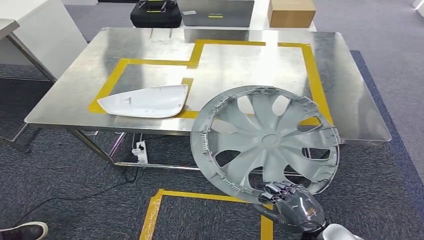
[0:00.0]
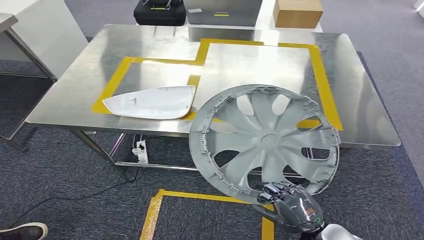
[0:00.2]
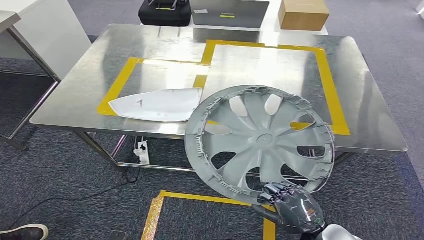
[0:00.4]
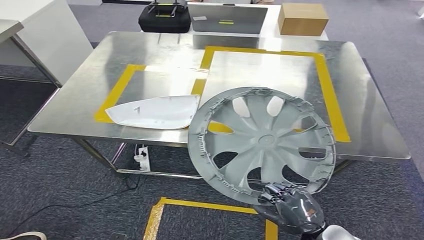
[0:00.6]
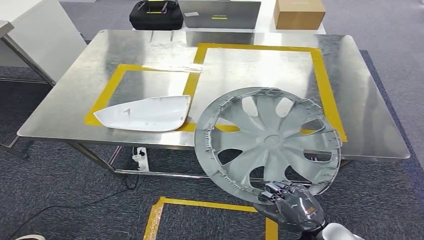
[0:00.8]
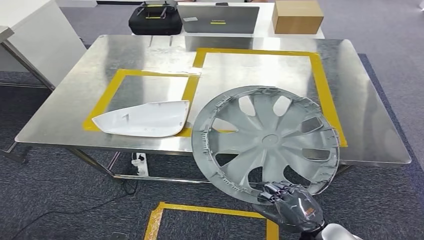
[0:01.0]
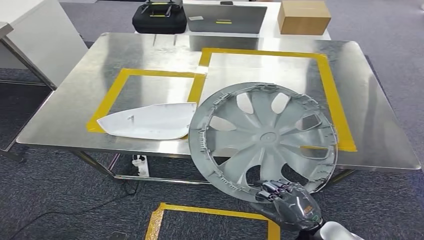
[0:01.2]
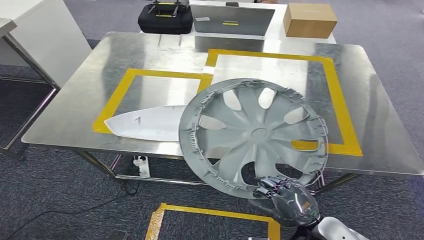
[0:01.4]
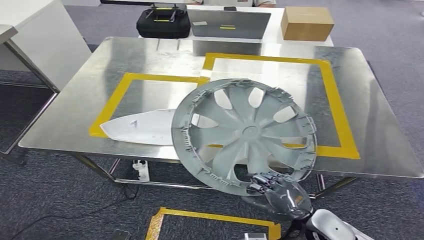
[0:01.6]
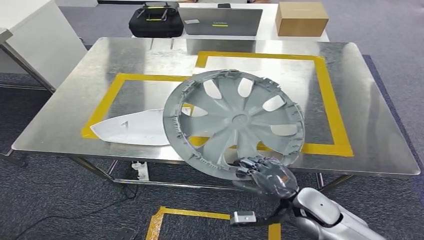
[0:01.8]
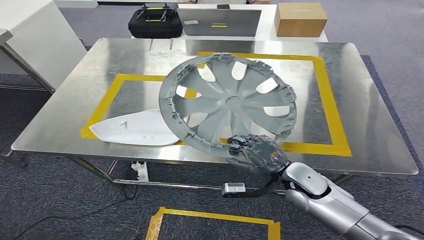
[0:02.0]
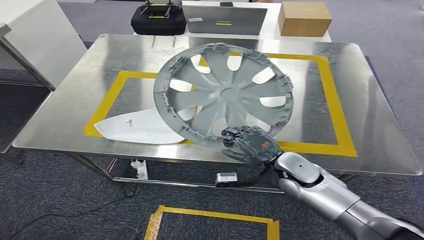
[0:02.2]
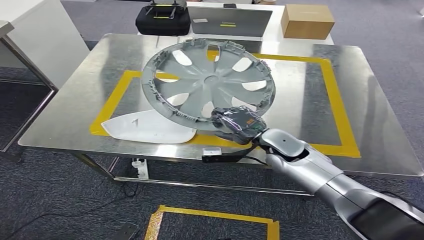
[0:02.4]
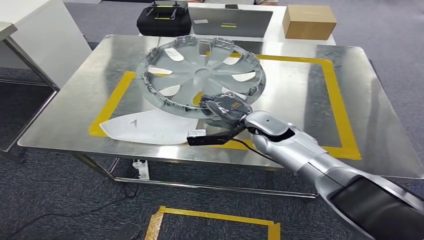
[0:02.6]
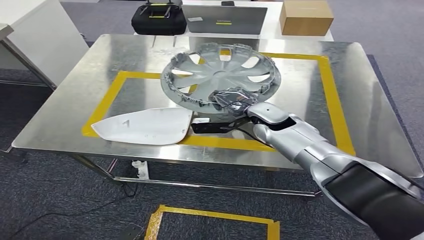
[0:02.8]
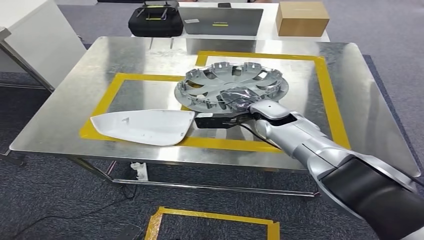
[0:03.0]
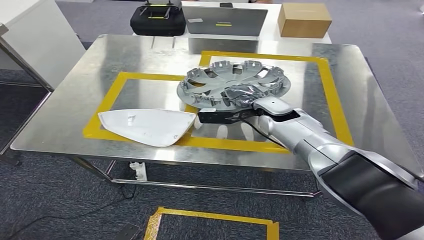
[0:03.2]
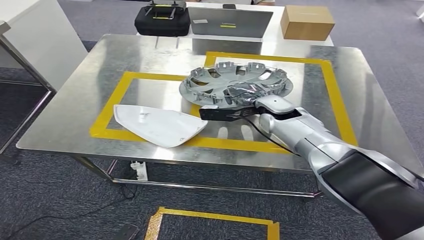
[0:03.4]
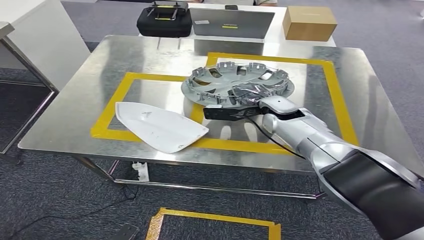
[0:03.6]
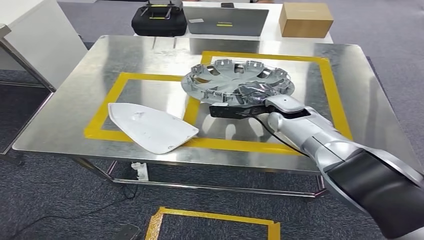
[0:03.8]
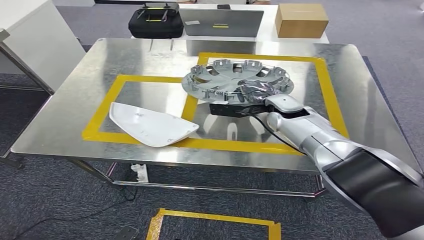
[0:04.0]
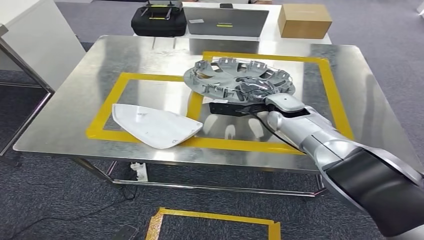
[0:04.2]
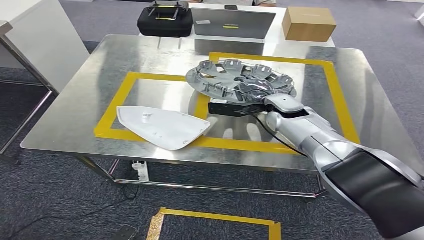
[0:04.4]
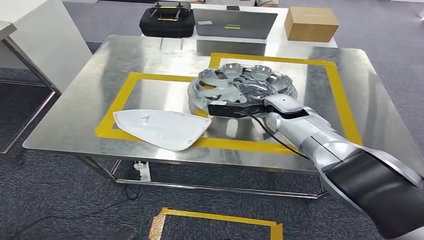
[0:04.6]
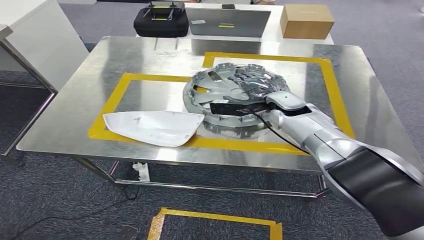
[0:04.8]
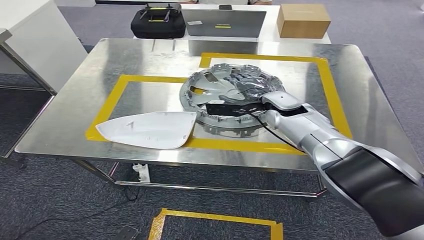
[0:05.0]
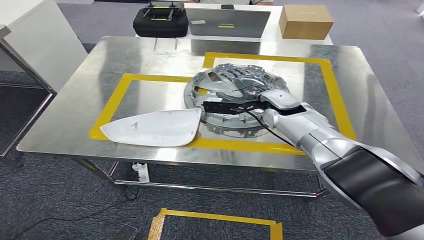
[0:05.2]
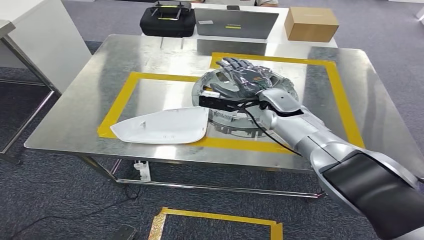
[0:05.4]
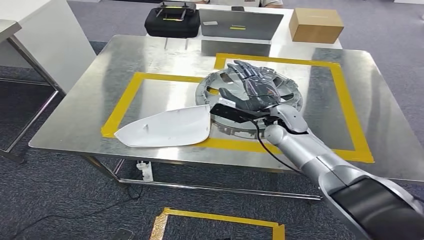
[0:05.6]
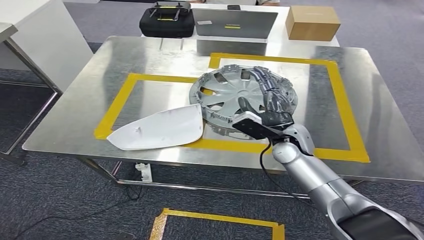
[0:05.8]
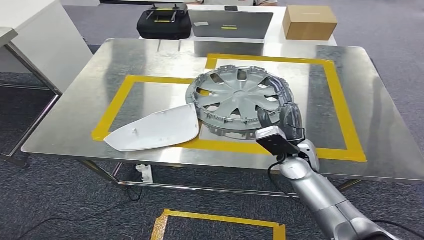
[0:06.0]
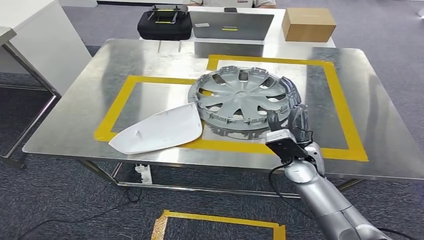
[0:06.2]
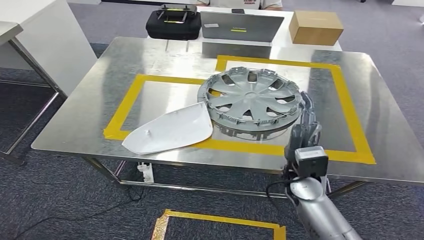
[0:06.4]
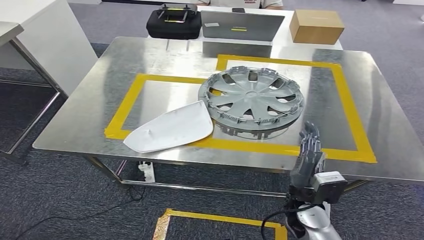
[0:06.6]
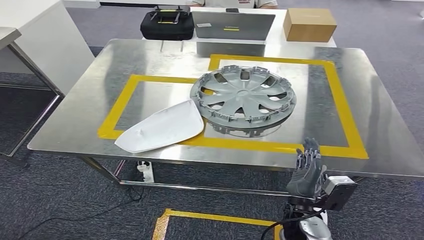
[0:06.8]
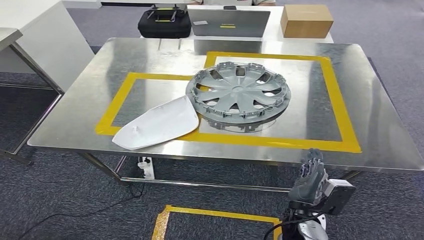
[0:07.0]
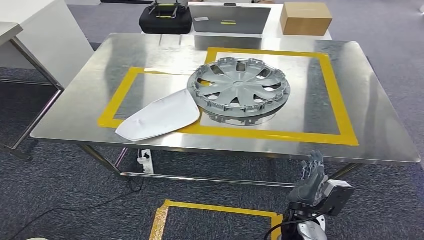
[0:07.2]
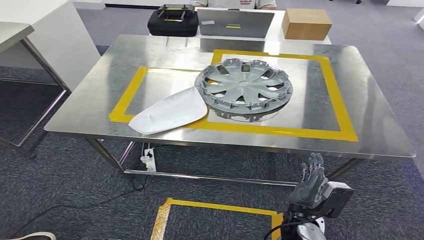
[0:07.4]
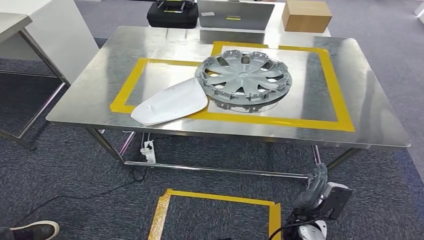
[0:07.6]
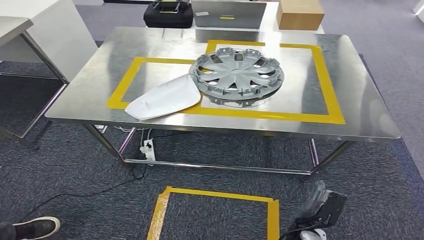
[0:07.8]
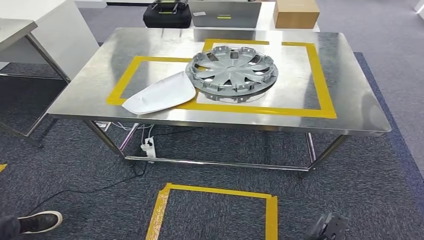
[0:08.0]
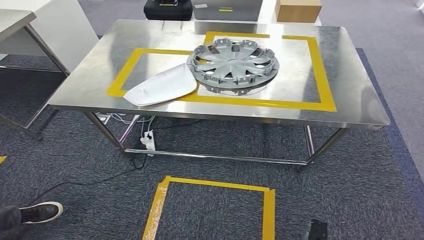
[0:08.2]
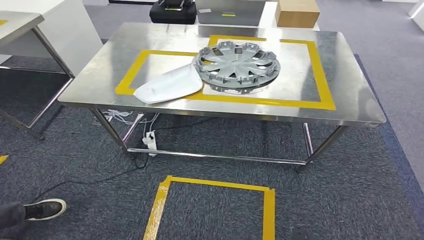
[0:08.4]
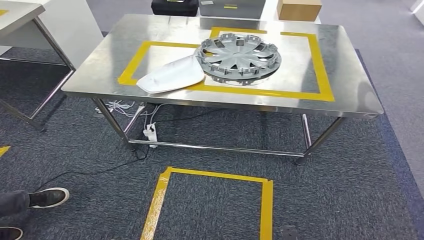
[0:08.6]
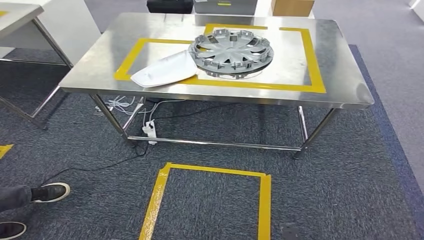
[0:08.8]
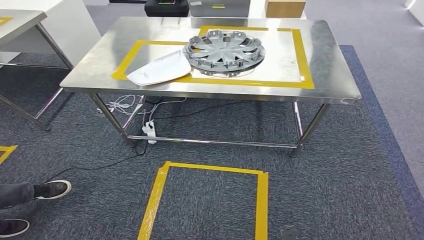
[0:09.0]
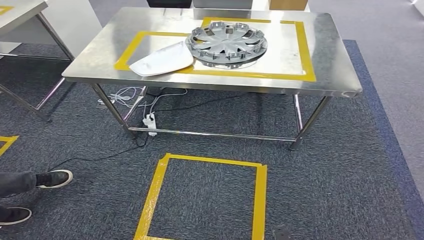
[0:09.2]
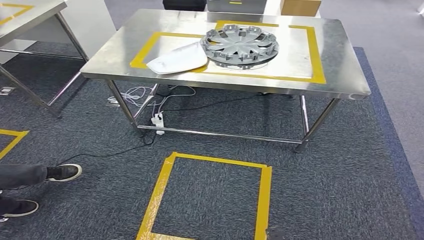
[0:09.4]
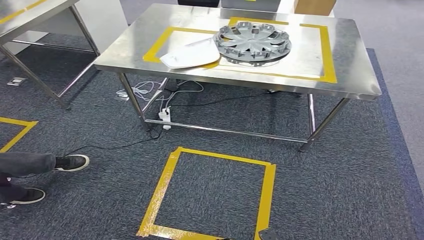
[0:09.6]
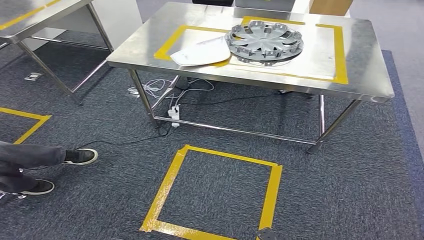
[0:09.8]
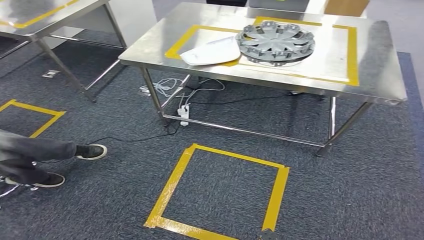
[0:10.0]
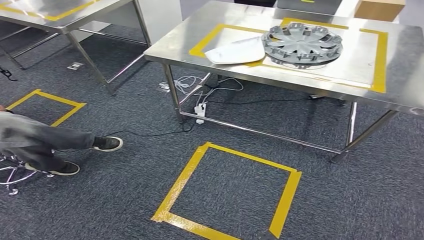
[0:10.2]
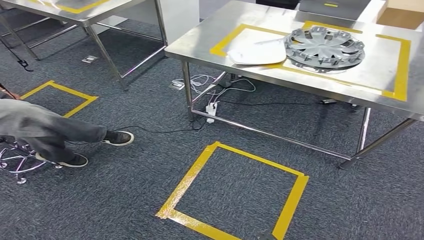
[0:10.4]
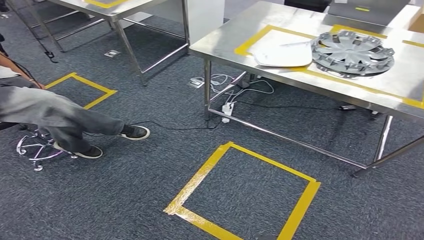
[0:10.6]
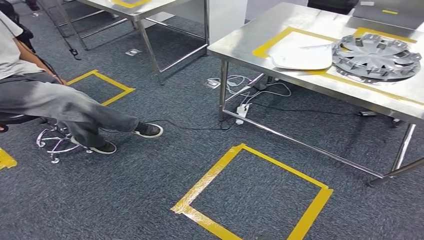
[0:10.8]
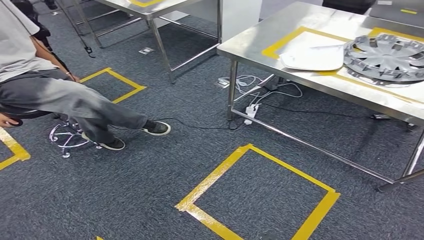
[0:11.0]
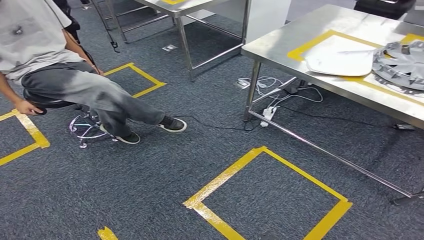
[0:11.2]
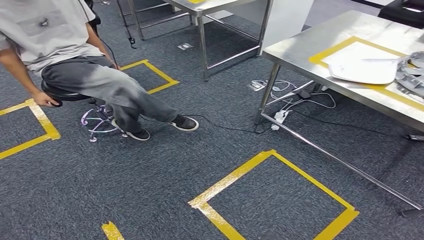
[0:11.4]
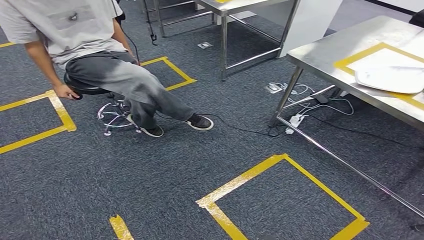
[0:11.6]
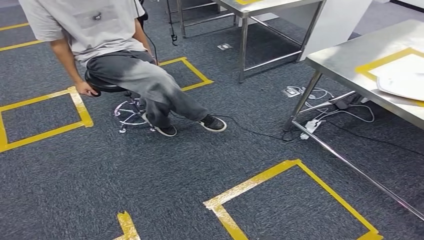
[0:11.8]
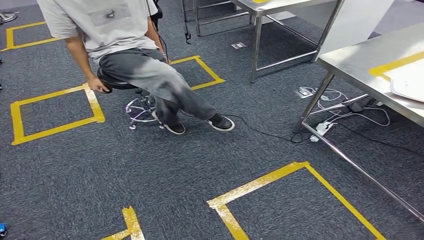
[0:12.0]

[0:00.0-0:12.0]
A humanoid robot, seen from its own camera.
Step, 0:00.0 to 0:06.2: Insert the small component into the corresponding slot on the workbench.

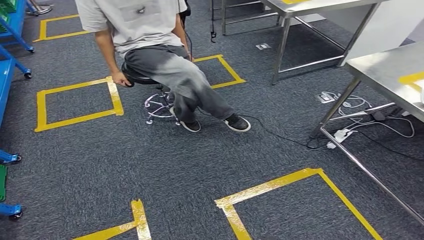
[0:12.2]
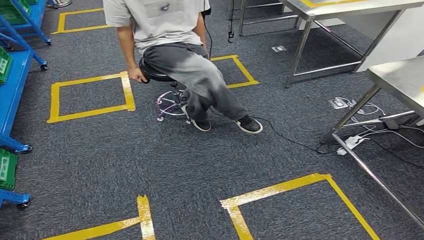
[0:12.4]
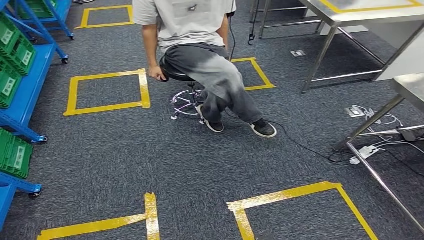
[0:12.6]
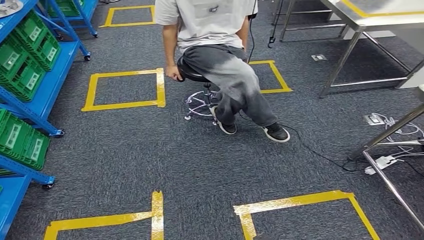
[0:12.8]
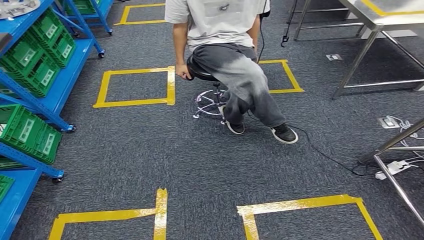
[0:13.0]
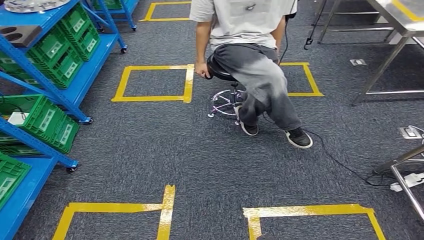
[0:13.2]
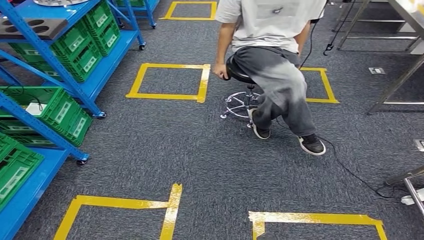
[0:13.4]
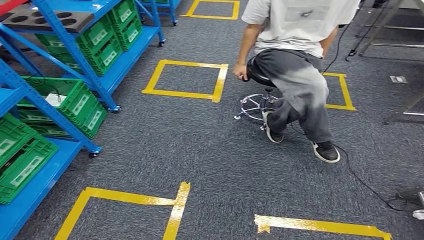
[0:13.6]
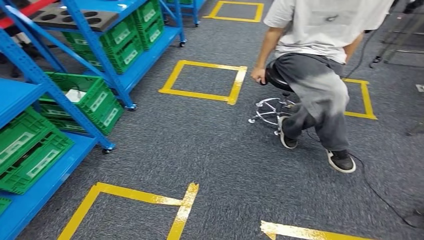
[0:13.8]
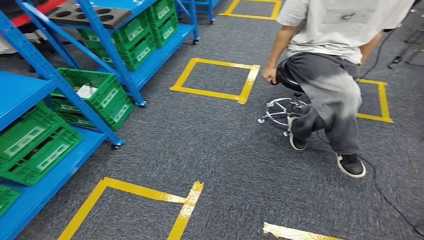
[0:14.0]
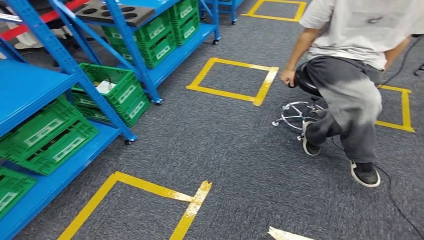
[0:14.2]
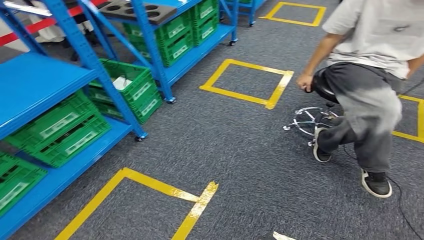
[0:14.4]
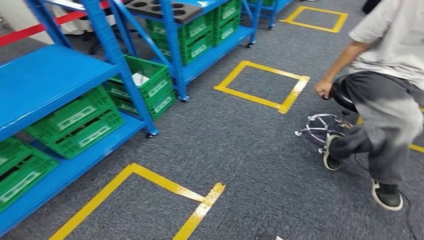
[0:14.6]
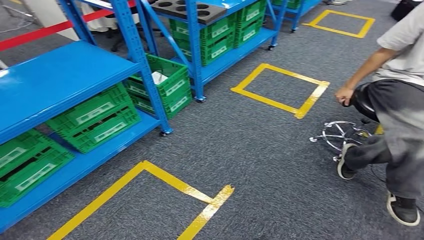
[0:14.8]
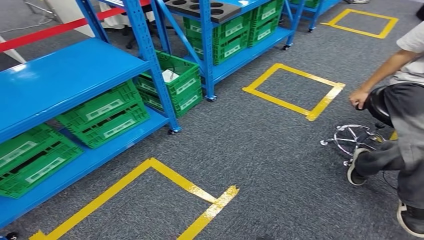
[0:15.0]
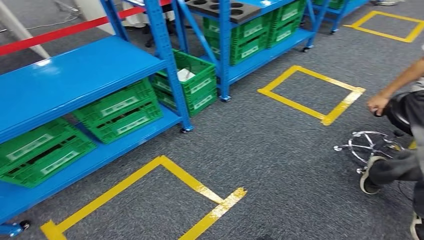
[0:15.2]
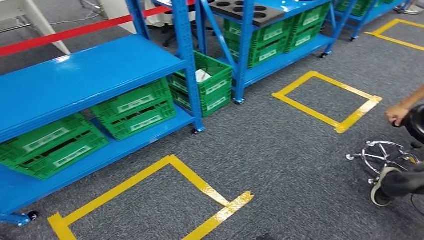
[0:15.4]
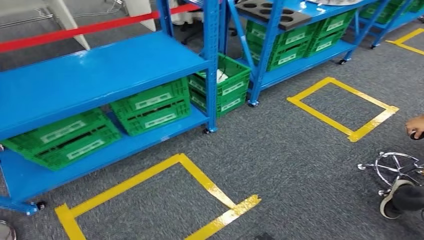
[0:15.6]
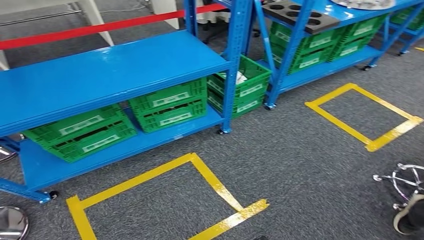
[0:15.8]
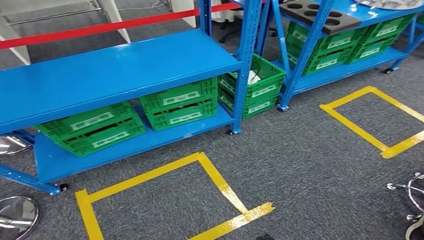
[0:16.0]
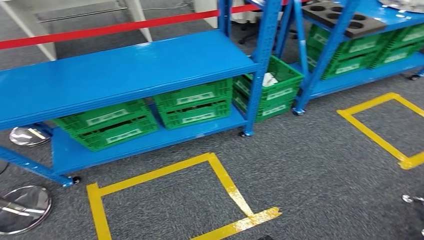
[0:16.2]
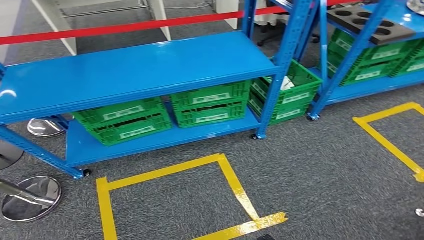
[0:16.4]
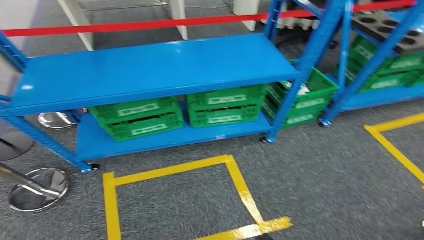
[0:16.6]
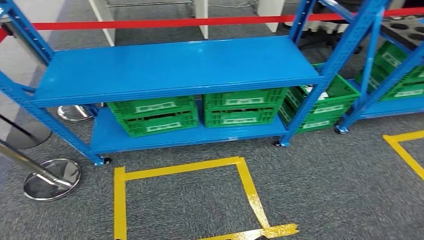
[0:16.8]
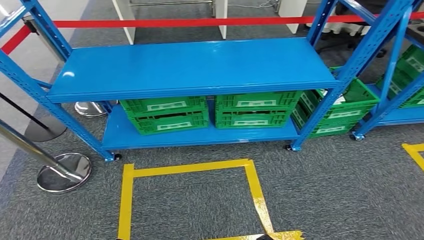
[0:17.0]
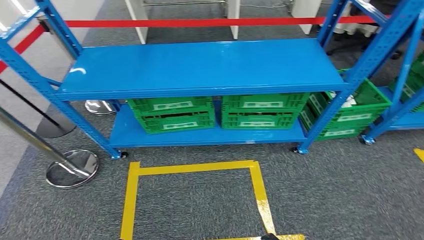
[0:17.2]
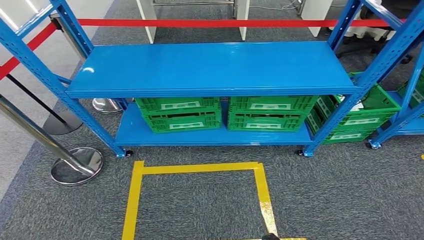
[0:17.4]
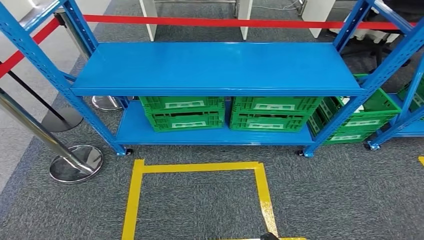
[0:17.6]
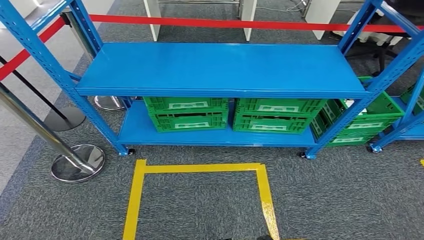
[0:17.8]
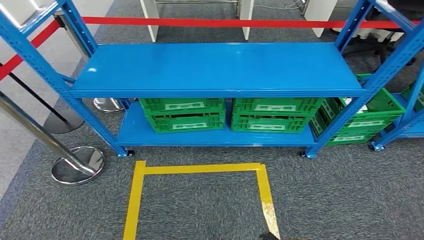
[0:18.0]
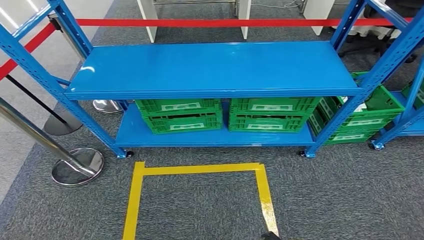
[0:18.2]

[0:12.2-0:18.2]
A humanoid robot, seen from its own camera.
Step, 0:12.2 to 0:18.2: Return to the initial position at the workbench.
